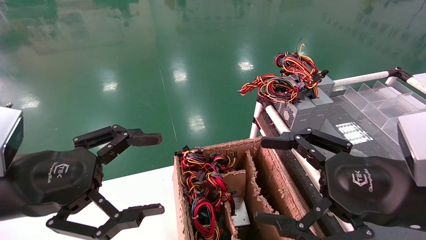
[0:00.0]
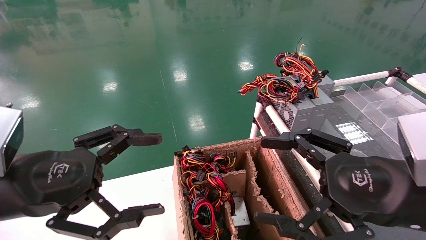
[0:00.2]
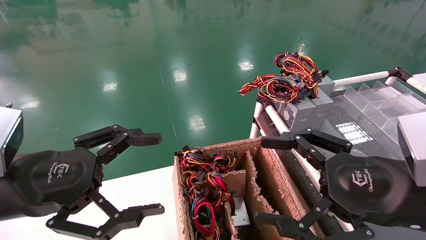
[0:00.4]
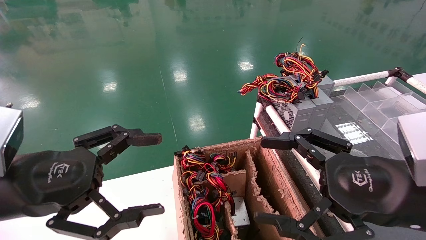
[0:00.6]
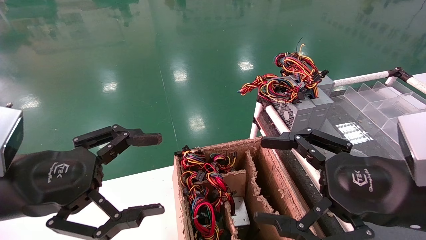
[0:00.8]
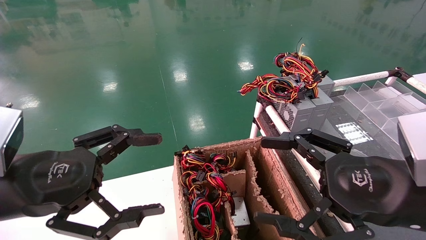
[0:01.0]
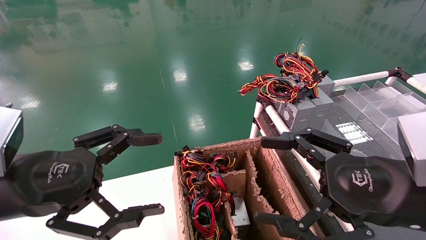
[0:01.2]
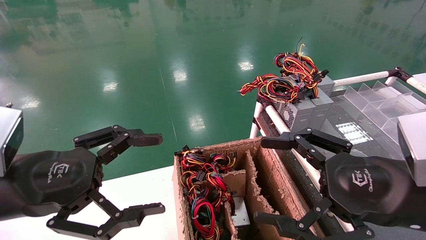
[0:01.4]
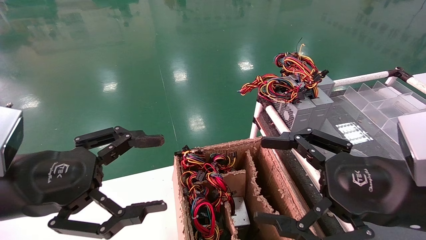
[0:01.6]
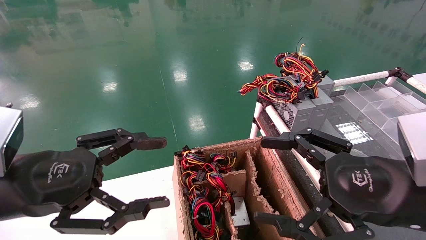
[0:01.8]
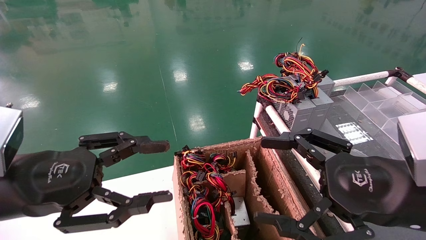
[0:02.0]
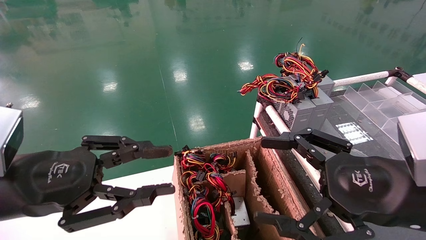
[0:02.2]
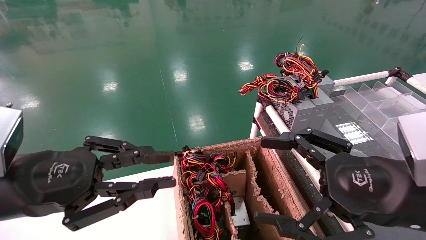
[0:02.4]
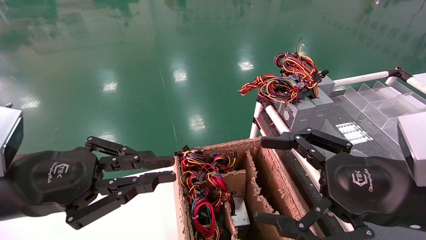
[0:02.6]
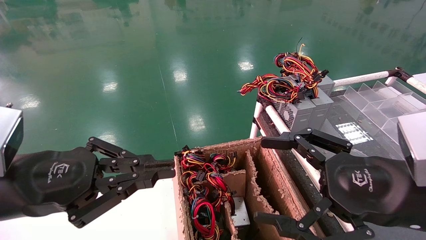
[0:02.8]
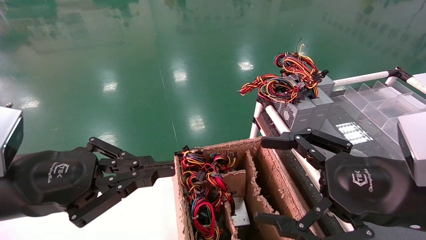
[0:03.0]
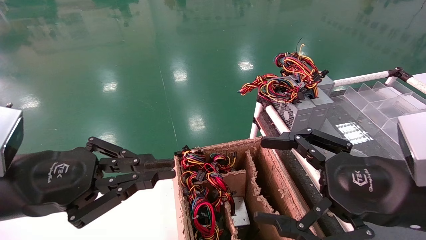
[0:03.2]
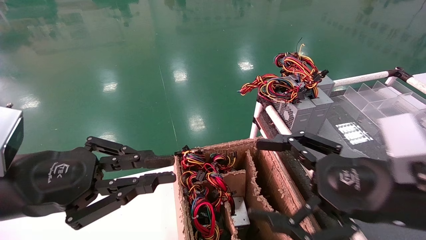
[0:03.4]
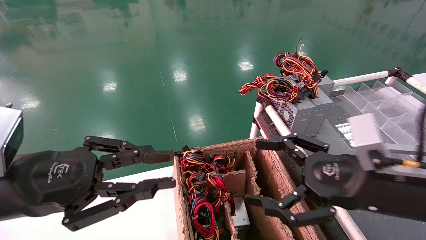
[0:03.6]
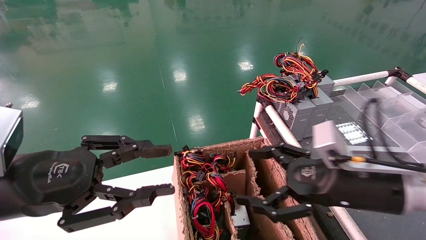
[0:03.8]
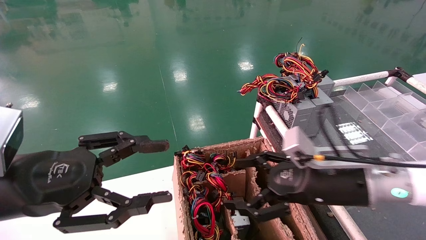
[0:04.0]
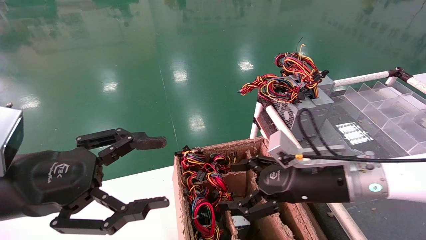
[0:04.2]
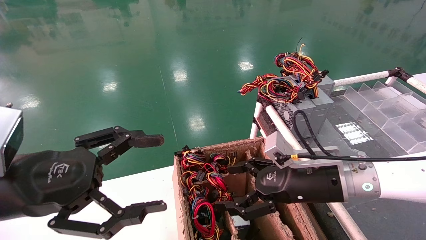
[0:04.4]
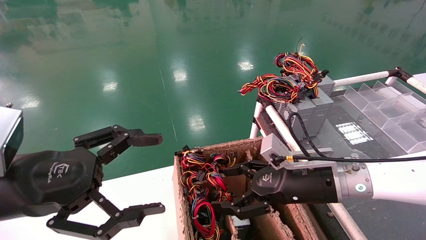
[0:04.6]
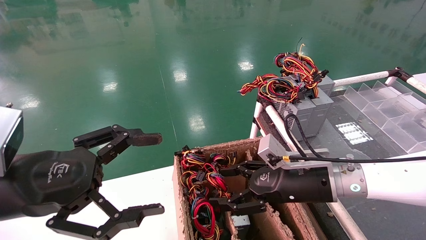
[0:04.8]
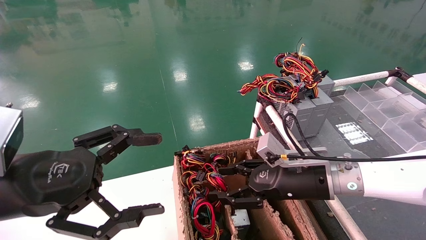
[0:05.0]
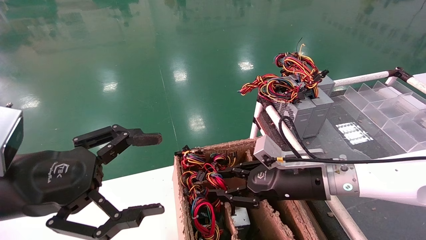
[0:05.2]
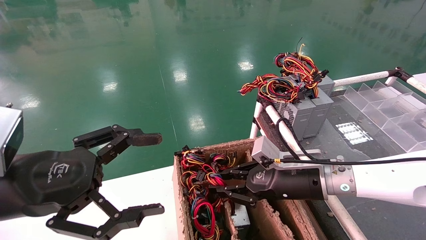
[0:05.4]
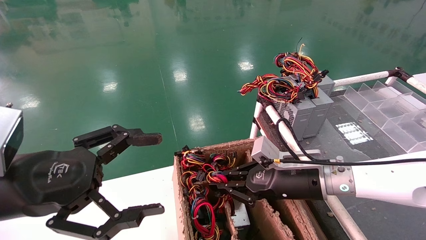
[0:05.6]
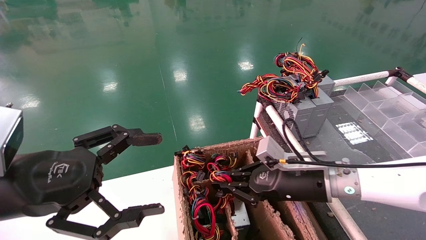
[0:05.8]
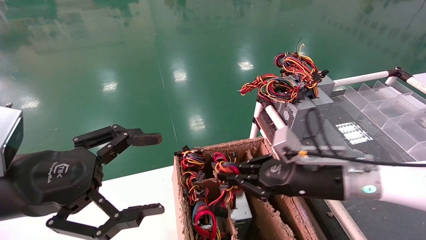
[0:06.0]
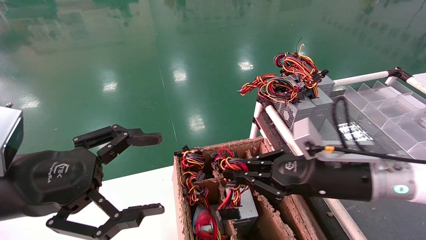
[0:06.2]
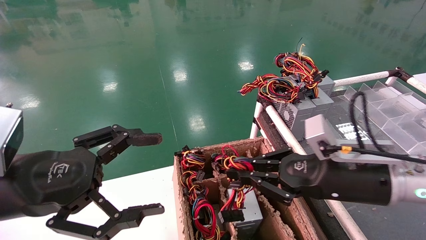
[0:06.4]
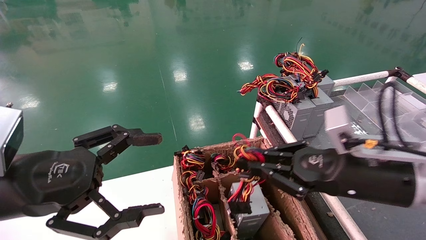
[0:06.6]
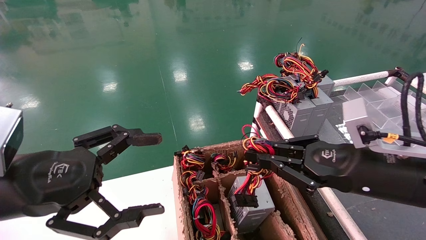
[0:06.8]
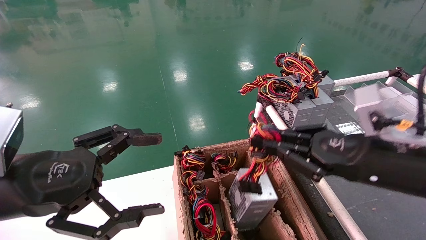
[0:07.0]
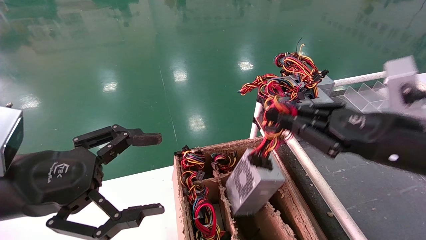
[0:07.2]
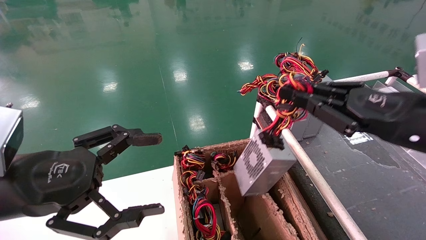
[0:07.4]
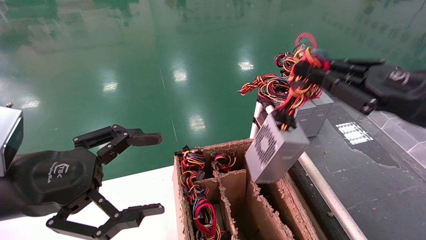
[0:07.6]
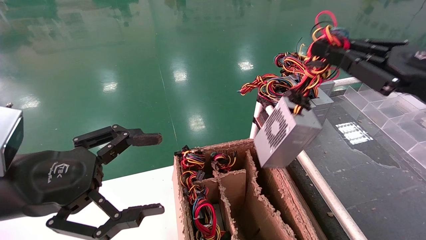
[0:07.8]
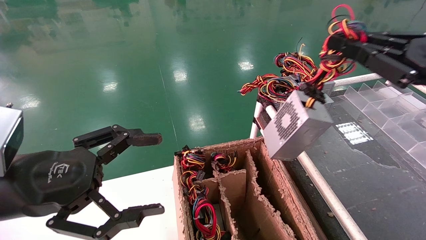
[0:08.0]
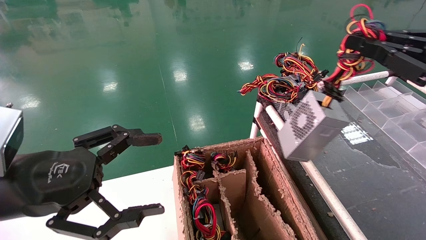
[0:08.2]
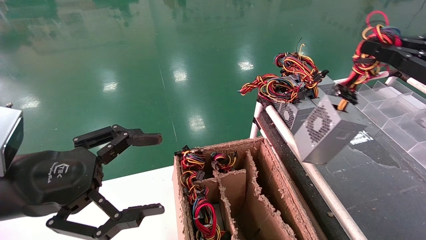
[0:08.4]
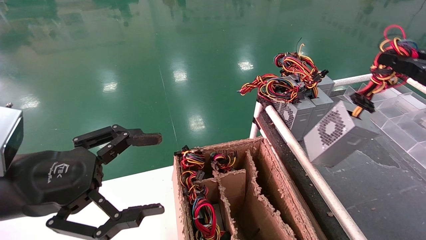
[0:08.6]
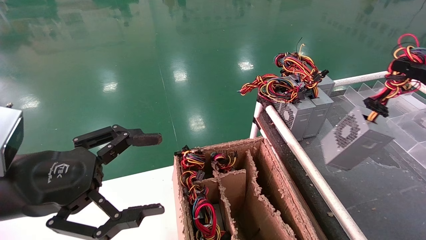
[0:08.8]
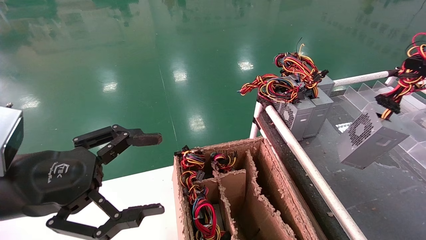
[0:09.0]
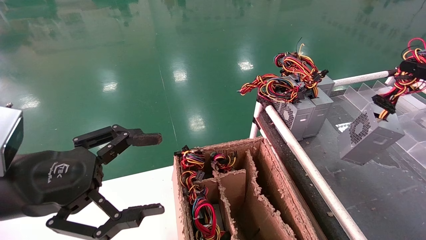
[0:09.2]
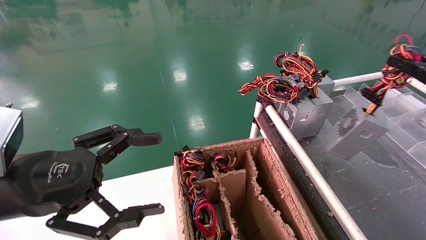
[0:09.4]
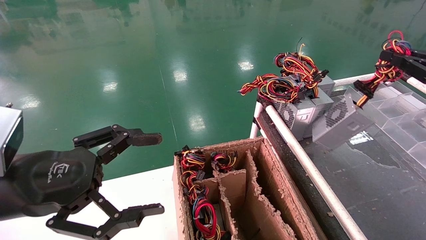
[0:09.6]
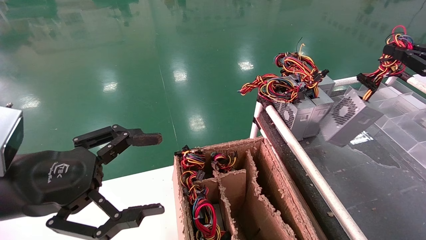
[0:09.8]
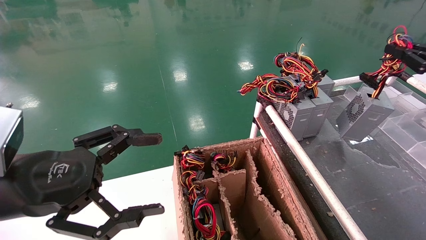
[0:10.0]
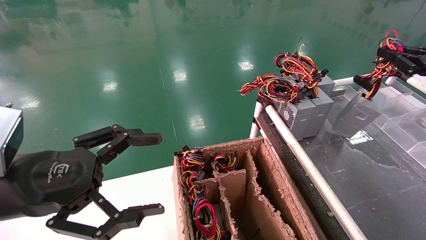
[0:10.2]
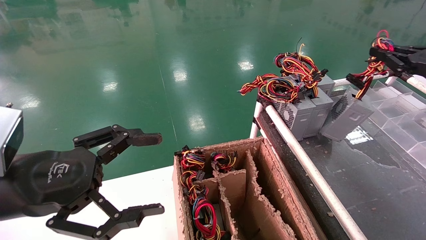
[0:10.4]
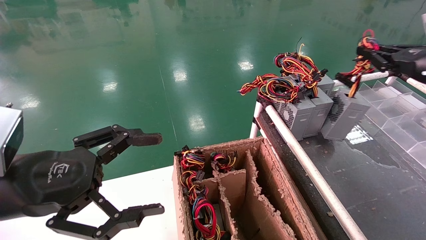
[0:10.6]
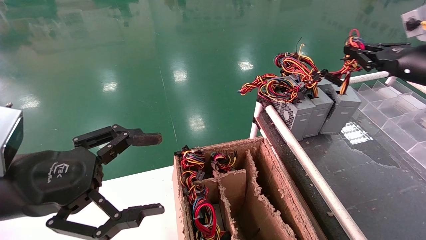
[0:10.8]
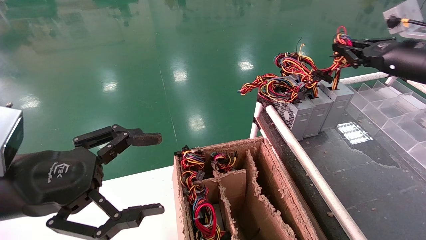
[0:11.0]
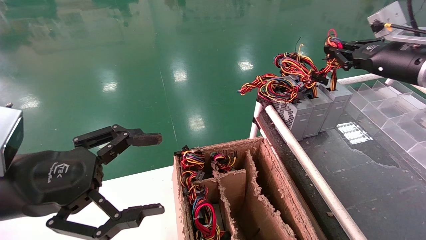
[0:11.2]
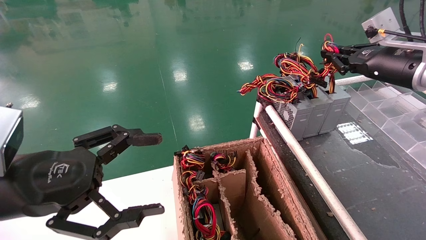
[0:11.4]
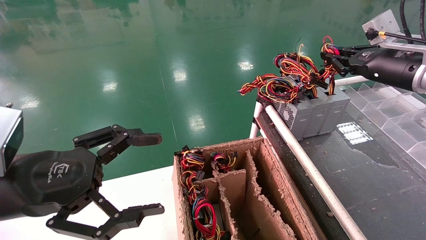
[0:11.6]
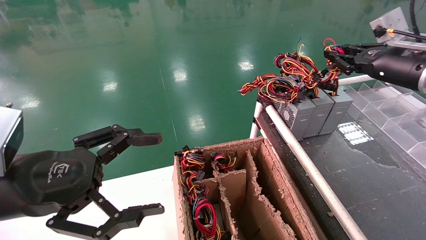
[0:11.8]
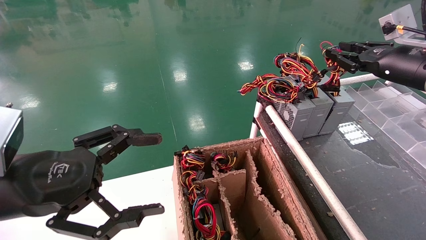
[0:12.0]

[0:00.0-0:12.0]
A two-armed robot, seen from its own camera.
Step, 0:03.0 to 0:06.0: Grab and lift the power supply from the large box.
Step, 0:06.2 to 0:11.8: Place the power supply on the operating table.
0:00.0 to 0:01.6: Neither gripper changes place.
0:01.6 to 0:03.0: The left gripper closes its fingers.
0:03.0 to 0:04.4: The left gripper opens its fingers. The right gripper heads forward, downward and to the left, covering some 15 cm.
0:04.4 to 0:06.0: The right gripper closes up.
0:06.0 to 0:07.6: The right gripper goes roughly 20 cm upward, to the right and backward.
0:07.6 to 0:09.0: The right gripper travels to the right by about 15 cm.
0:09.0 to 0:10.4: The right gripper heads forward, covering about 10 cm.
0:10.4 to 0:12.0: The right gripper shifts about 5 cm to the left.

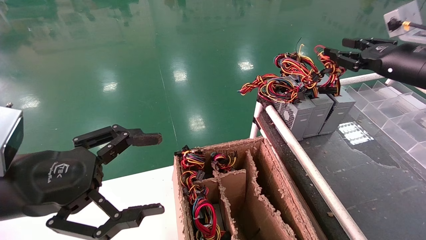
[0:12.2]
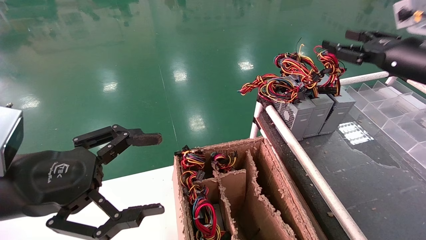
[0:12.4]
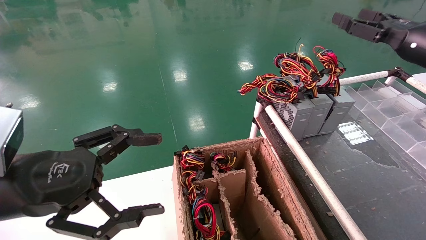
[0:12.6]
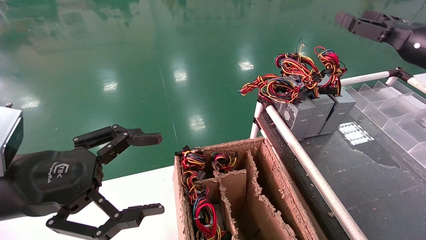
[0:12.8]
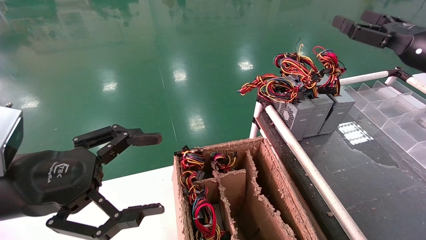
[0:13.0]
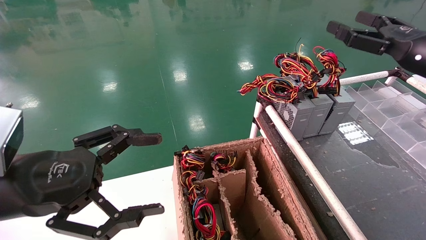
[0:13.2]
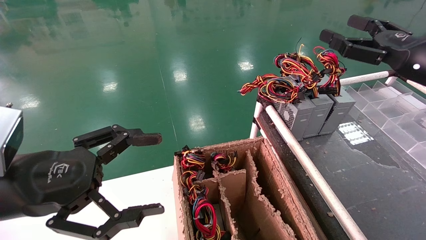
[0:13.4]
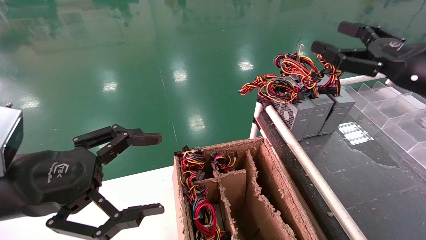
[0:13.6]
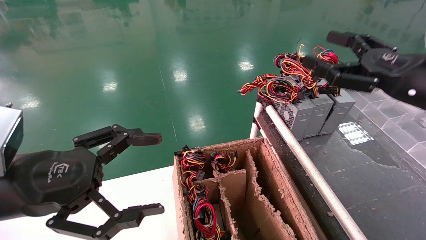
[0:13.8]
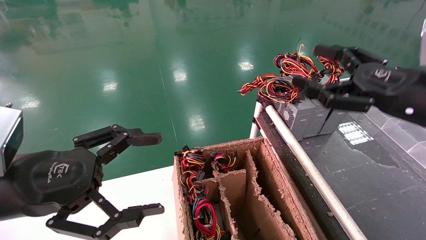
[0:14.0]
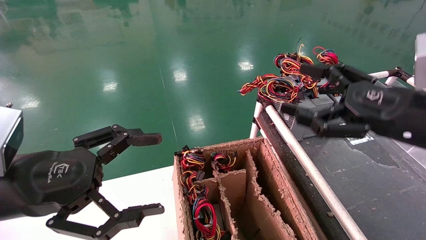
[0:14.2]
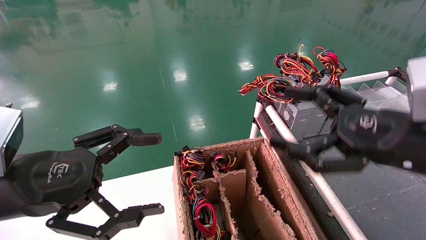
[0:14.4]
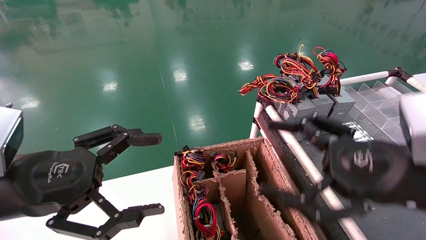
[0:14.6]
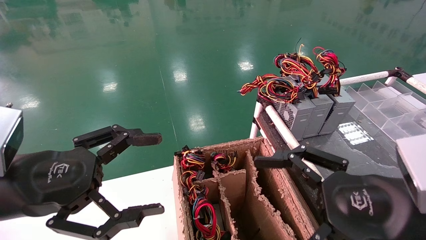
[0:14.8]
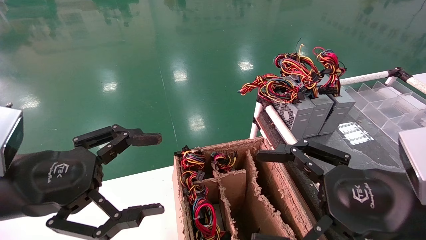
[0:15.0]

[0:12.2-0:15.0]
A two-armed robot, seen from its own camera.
0:12.2 to 0:13.6: The right gripper travels backward by roughly 10 cm, and opens its fingers.
0:13.6 to 0:15.0: The right gripper is displaced backward, downward and to the left by some 20 cm.

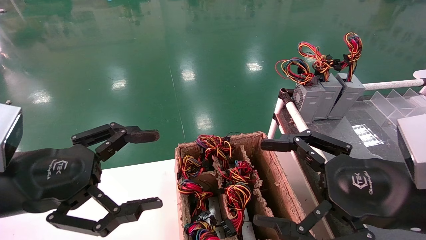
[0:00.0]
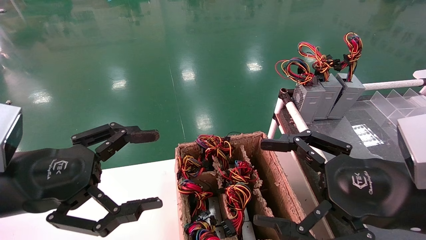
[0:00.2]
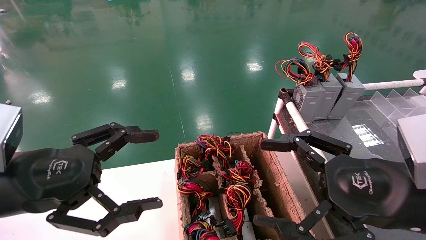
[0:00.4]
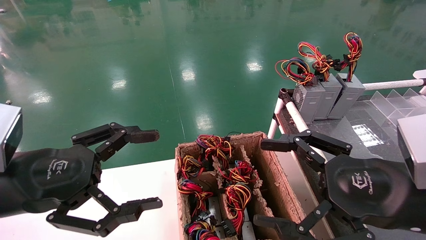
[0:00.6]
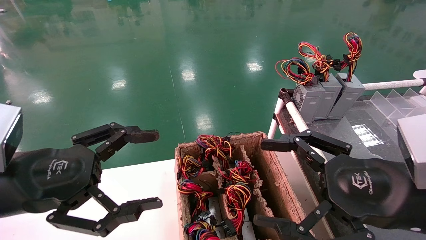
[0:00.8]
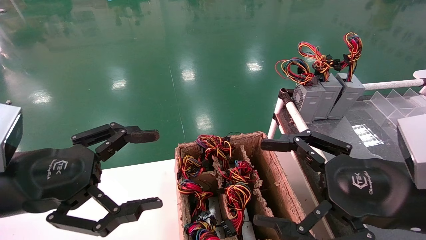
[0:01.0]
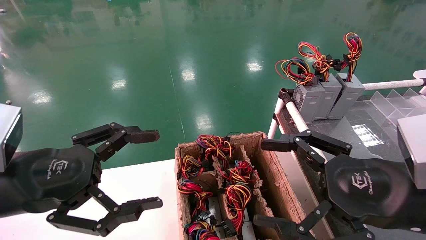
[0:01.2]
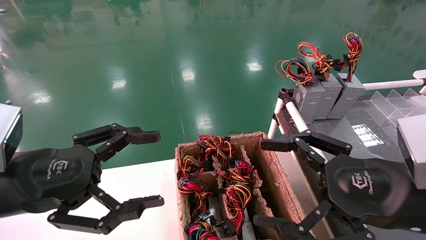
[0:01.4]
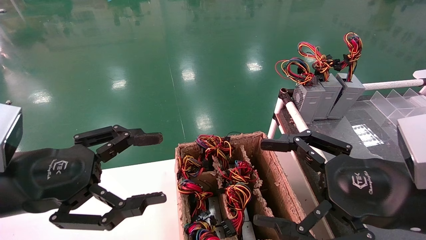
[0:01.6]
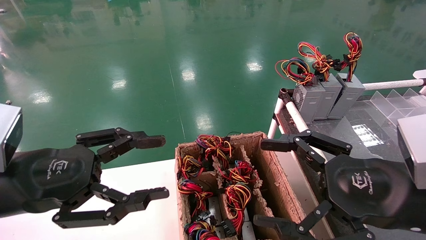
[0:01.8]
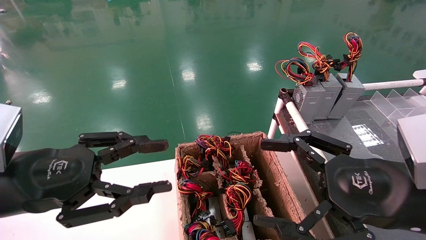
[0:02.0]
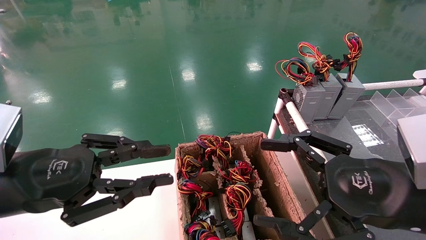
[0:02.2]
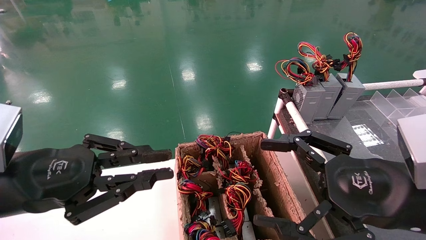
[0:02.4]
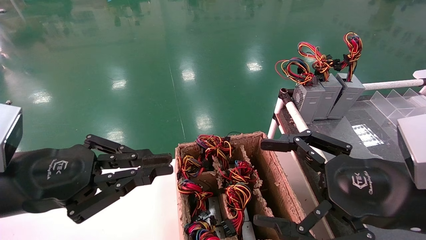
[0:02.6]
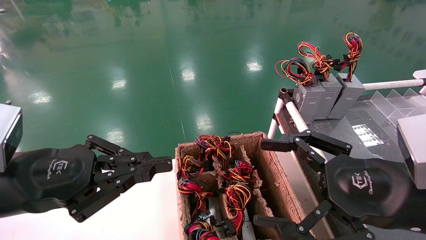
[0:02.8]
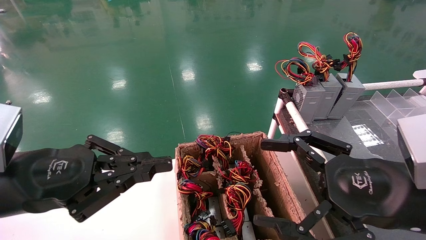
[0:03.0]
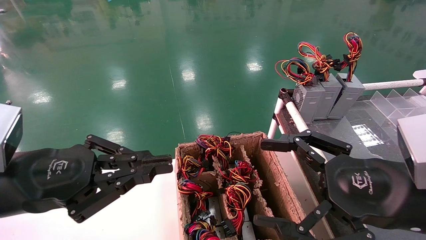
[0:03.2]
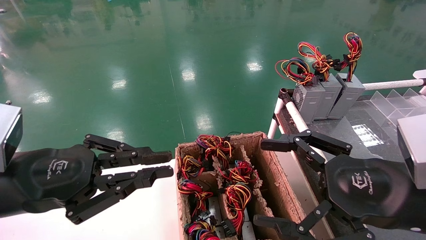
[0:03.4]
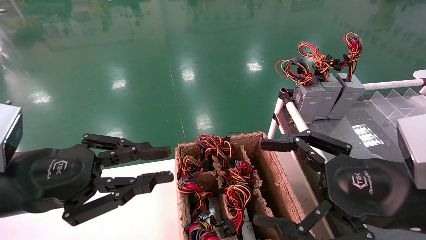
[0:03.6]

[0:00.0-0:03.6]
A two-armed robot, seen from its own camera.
0:00.0 to 0:01.8: Neither gripper changes place.
0:01.8 to 0:03.6: The left gripper closes up.
